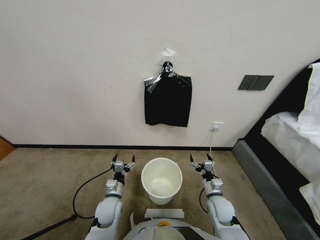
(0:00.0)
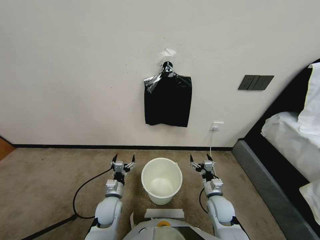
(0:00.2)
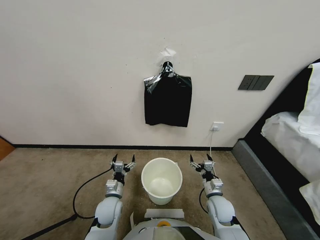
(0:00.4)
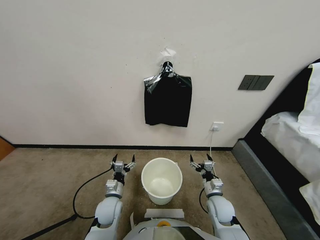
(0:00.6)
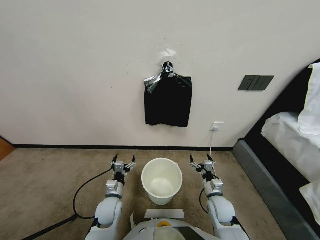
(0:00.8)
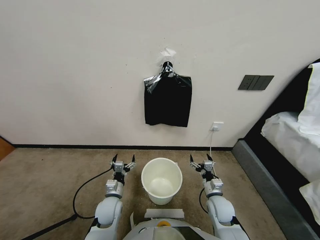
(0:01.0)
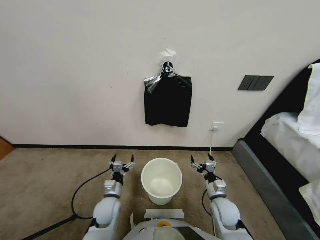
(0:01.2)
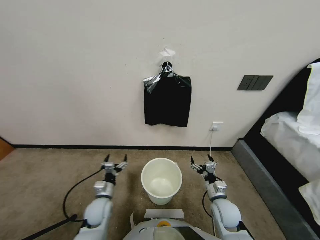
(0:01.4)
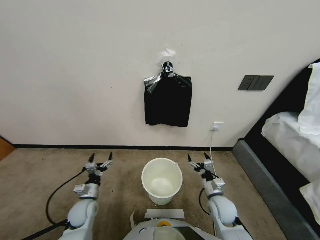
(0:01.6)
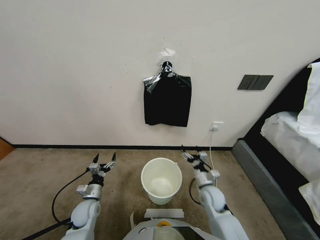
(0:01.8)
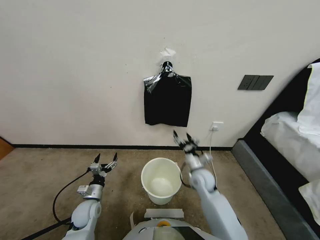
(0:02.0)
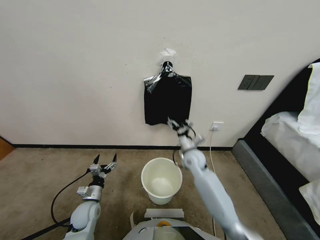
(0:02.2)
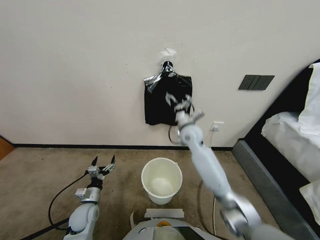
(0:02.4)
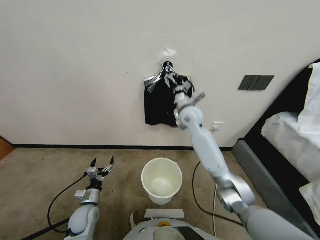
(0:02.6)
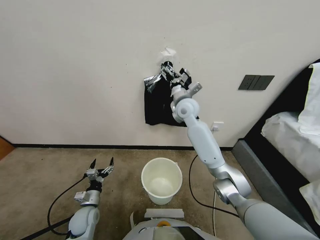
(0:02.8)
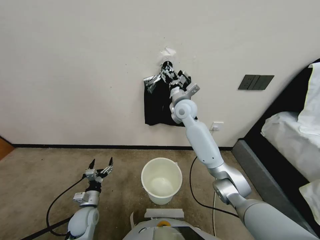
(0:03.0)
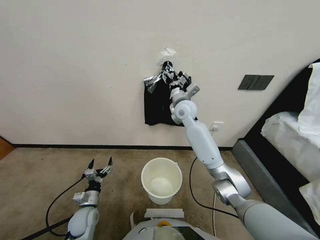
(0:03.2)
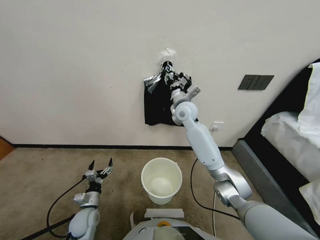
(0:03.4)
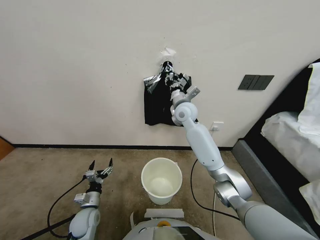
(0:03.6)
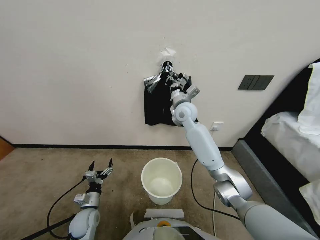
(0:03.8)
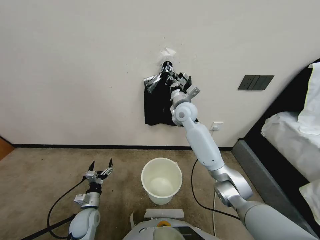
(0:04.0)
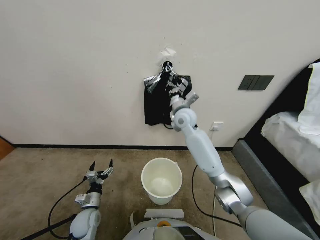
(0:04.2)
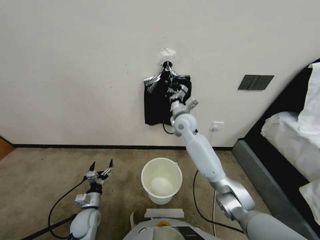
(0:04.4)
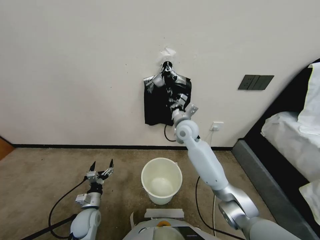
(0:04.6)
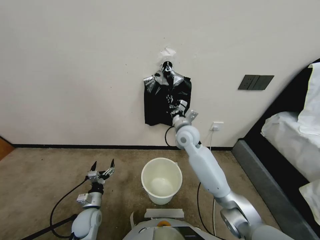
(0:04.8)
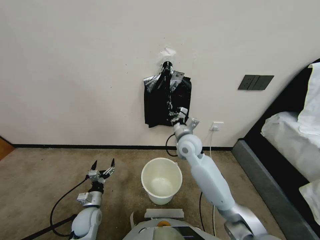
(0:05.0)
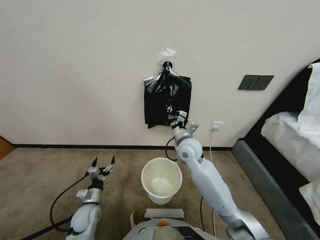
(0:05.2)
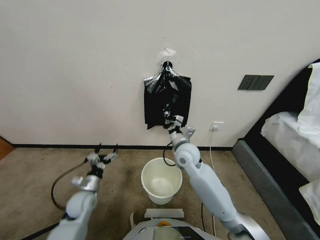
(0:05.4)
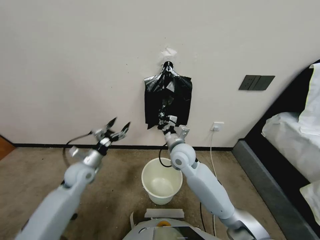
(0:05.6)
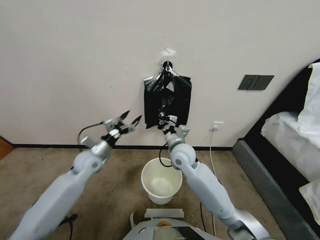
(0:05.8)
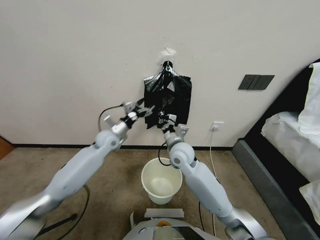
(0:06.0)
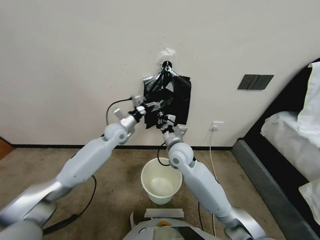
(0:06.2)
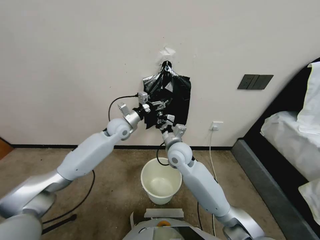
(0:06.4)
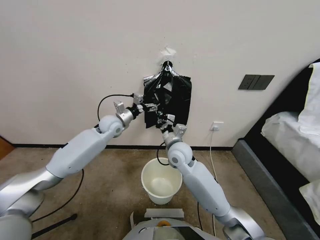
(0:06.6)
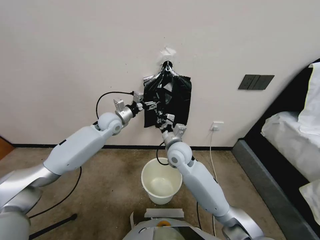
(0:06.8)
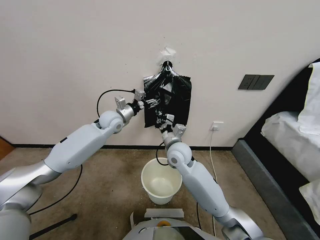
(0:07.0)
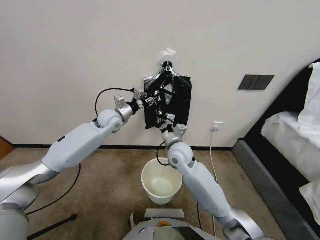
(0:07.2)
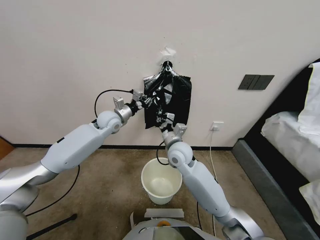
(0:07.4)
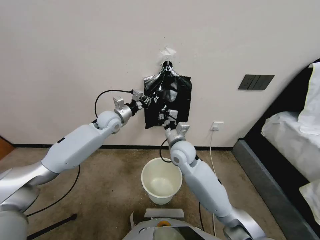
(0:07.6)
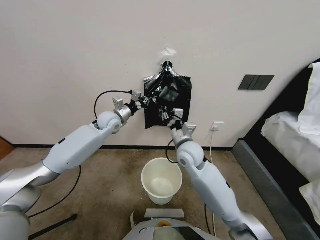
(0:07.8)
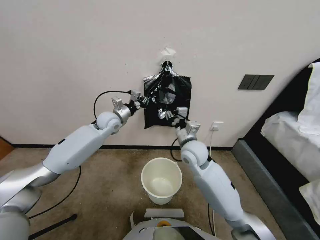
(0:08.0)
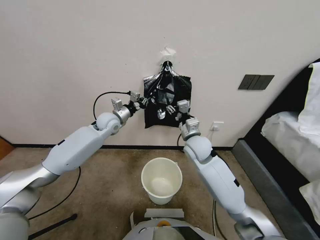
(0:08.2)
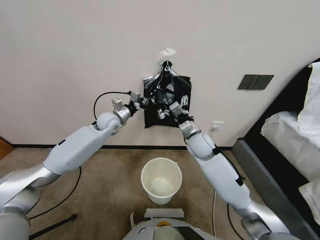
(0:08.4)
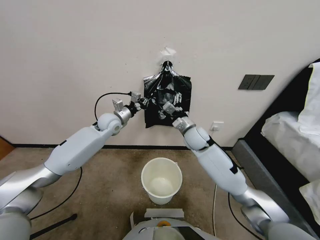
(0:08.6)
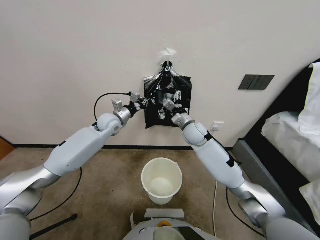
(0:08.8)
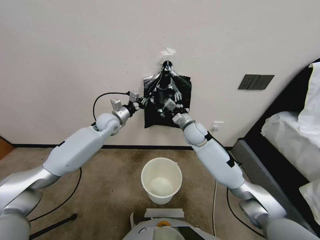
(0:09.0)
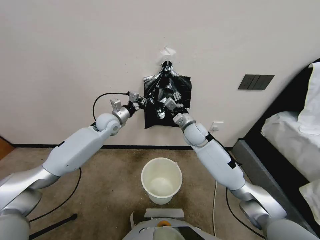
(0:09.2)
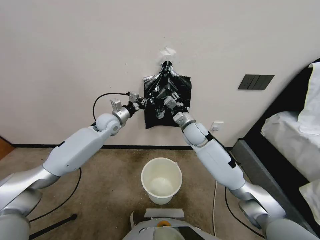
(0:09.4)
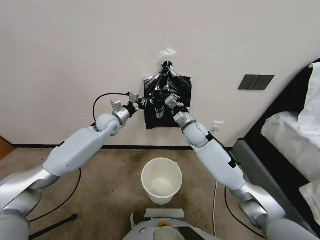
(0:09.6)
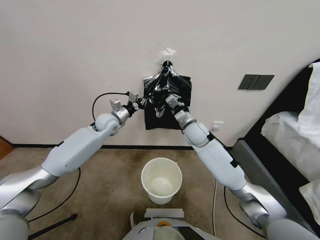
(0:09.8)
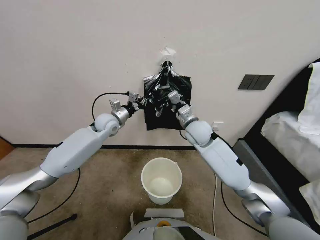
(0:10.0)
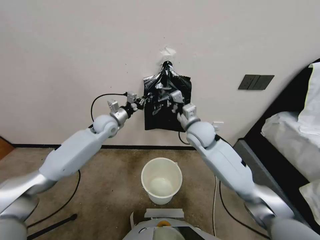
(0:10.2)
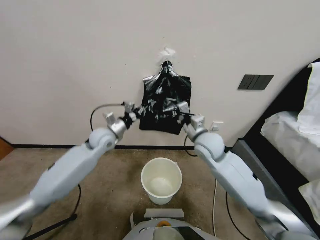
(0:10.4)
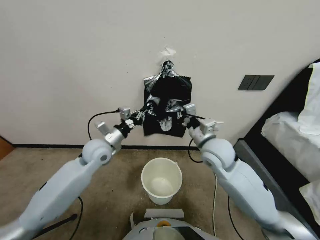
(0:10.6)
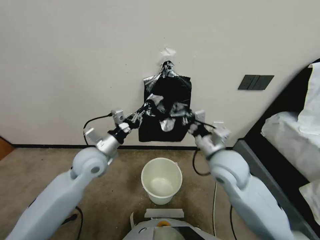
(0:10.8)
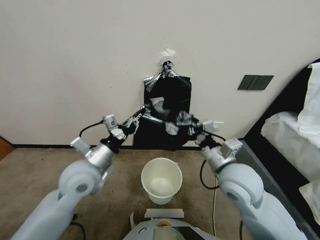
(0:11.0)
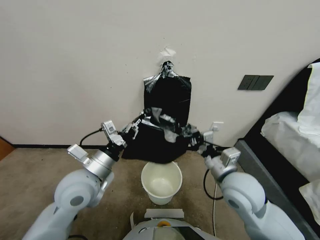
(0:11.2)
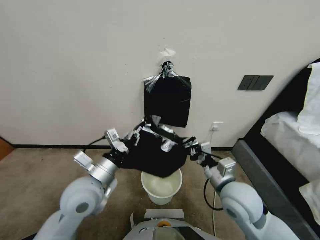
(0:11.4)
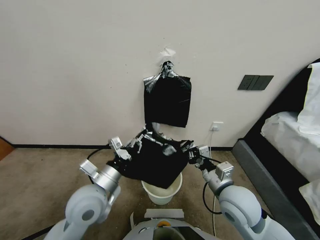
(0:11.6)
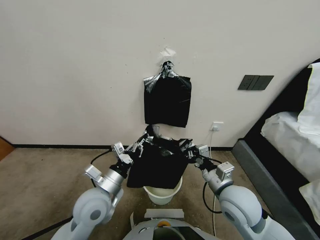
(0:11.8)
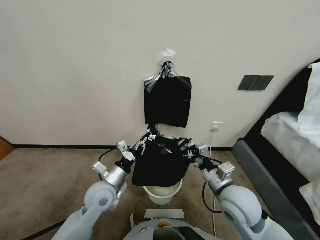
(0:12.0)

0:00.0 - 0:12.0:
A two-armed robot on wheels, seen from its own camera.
Task of the whole recording: Place a trash bag onto the trash bin.
0:01.6 - 0:03.0: The right gripper moves upward, forward and to the left, some 40 cm.
0:03.0 - 0:04.4: The right gripper shifts roughly 5 cm downward, and closes.
0:04.4 - 0:06.0: The right gripper shifts roughly 10 cm backward, while the left gripper goes roughly 35 cm forward and upward.
0:06.0 - 0:07.6: The left gripper moves roughly 5 cm, and closes its fingers.
0:07.6 - 0:09.0: The right gripper goes some 10 cm forward and to the right, and opens up.
0:09.0 - 0:10.4: Both grippers move backward, approximately 10 cm. The right gripper closes.
0:10.4 - 0:12.0: Both grippers move backward and downward, approximately 15 cm.

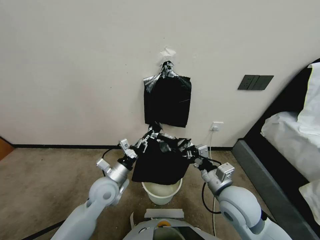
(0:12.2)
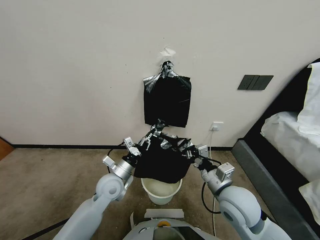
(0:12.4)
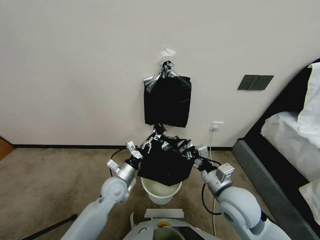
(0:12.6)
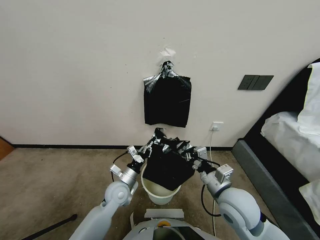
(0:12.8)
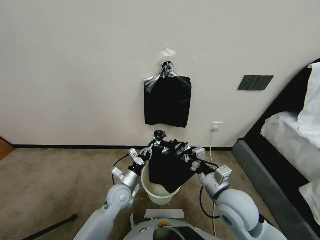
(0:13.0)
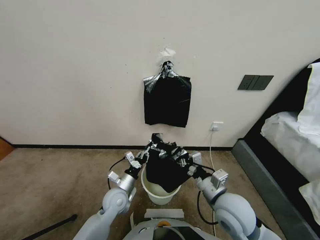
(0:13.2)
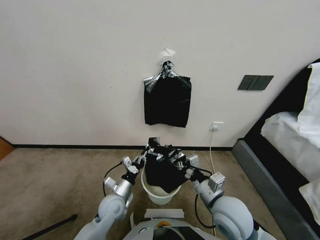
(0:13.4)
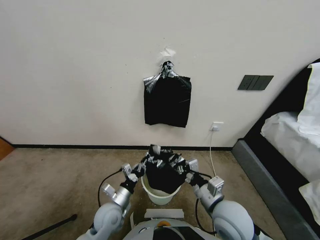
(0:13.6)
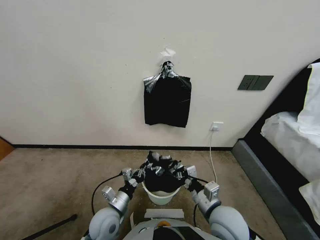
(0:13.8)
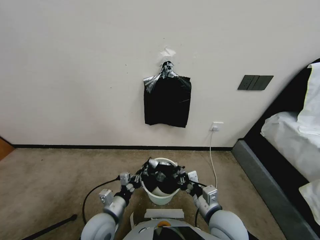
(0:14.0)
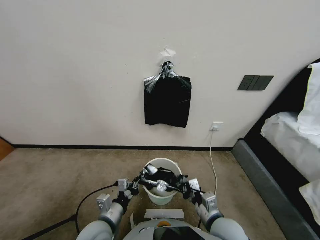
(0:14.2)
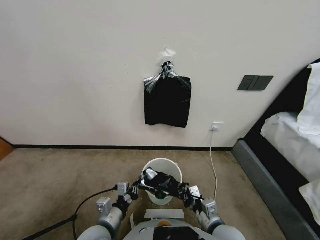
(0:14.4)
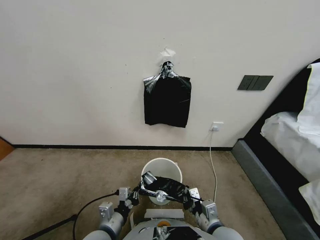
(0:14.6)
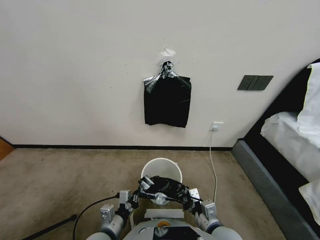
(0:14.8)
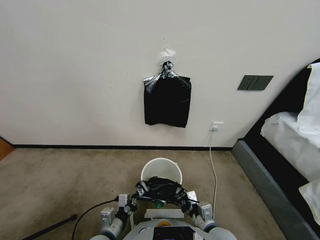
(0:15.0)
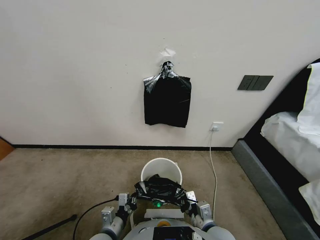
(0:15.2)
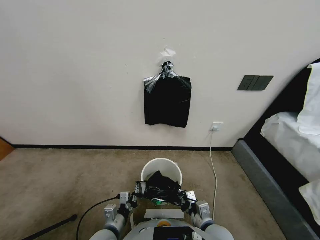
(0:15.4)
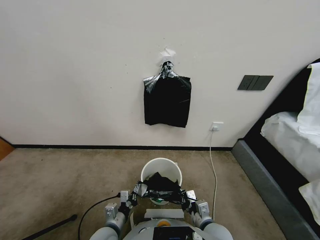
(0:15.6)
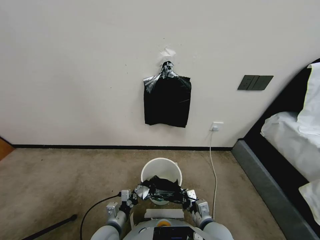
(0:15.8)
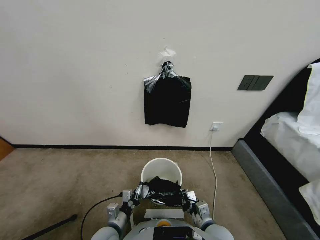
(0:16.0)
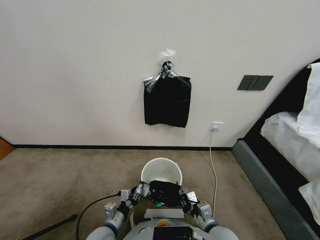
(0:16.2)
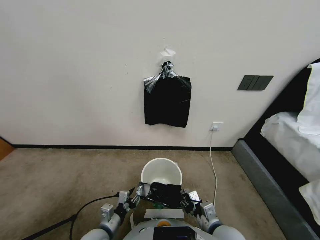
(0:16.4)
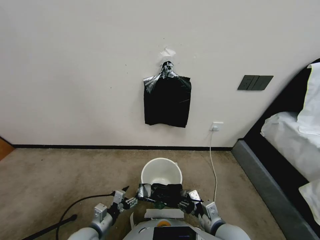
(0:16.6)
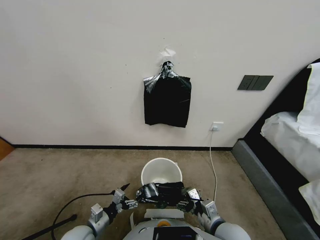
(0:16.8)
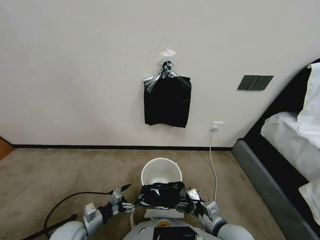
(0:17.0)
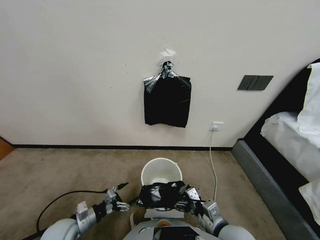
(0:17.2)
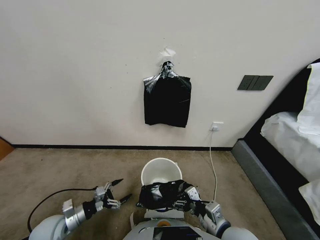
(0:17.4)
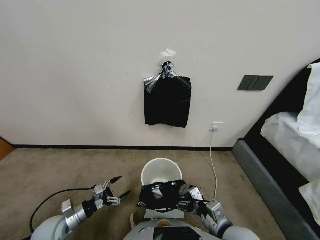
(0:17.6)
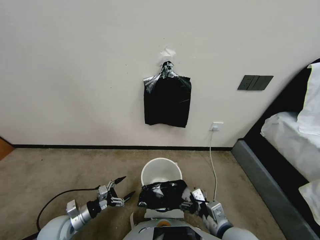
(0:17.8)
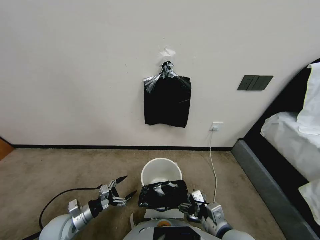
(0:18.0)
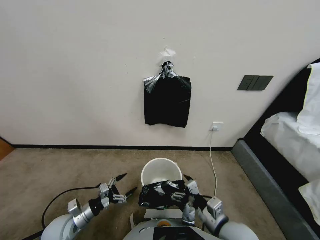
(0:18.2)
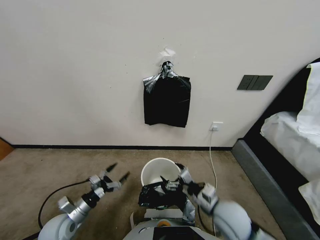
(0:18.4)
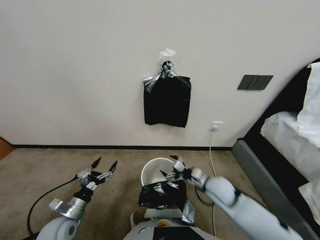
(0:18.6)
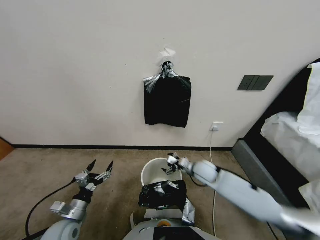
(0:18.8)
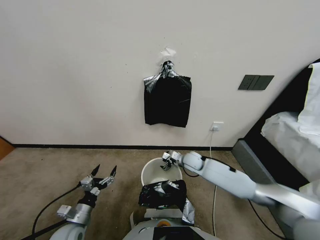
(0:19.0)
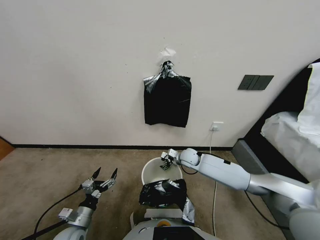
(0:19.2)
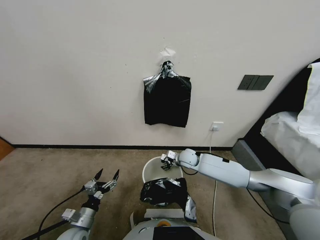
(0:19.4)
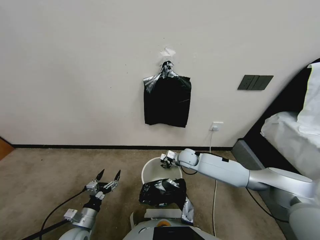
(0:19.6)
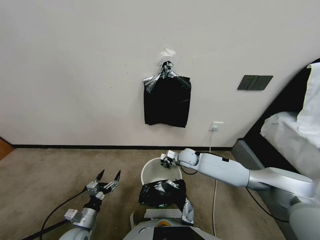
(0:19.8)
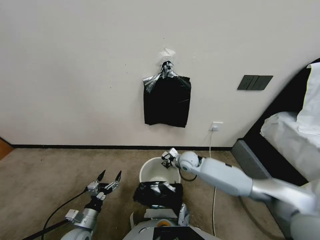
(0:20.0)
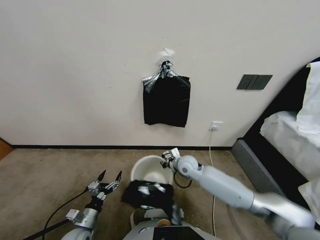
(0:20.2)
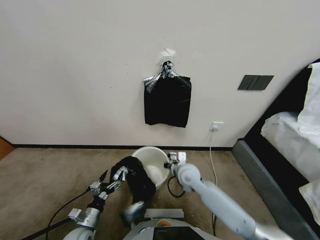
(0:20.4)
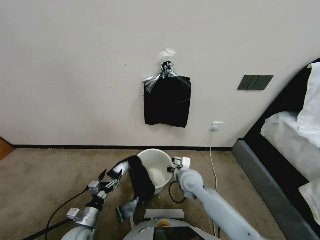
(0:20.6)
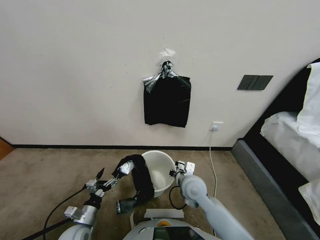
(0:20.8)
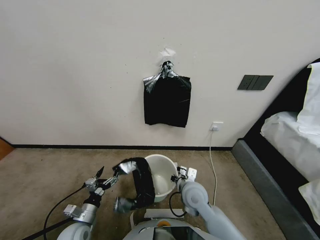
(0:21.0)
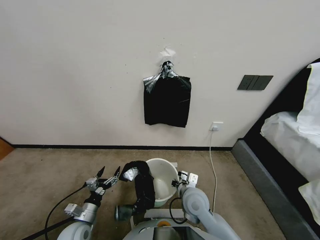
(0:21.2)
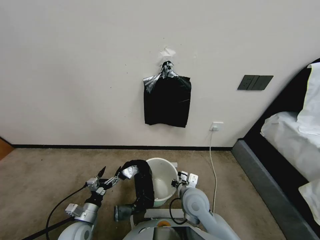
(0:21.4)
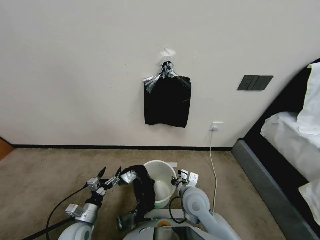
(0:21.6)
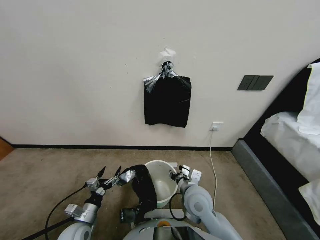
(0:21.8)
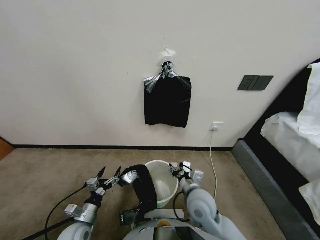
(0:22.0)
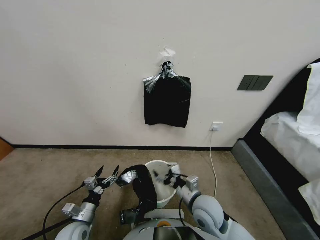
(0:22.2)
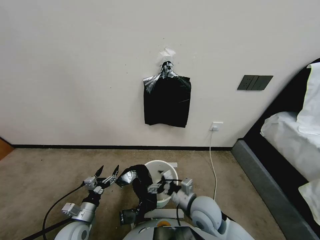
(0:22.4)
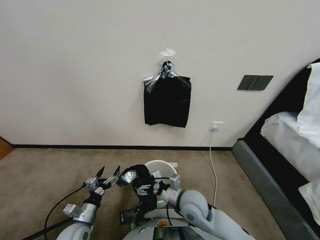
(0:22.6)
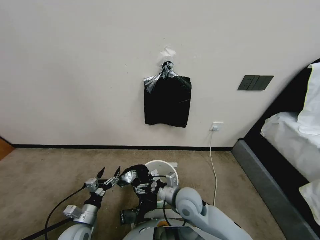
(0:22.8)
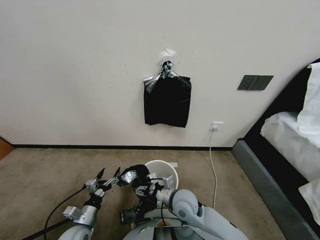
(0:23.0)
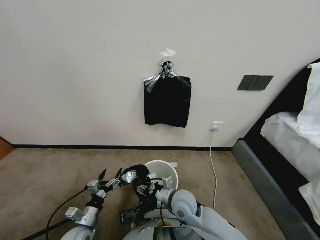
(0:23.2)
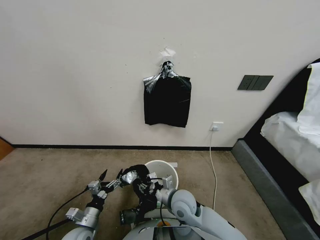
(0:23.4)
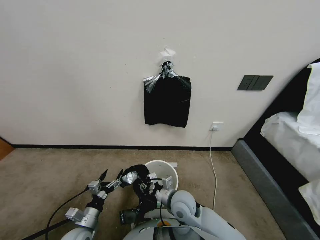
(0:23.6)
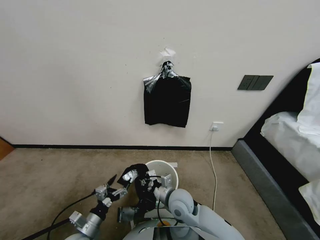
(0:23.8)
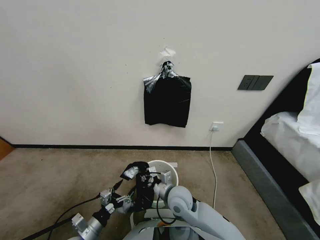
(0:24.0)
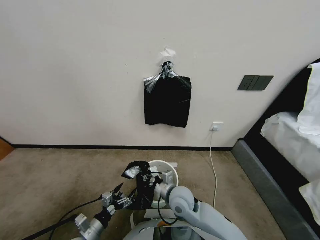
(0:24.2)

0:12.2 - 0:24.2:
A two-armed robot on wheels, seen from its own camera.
Task of the whole recording: Place a trash bag onto the trash bin.
0:12.2 - 0:13.8: The right gripper moves downward and backward, roughly 10 cm. The left gripper shifts some 15 cm backward and downward.
0:13.8 - 0:15.2: The right gripper shifts approximately 5 cm downward. Meanwhile the left gripper shifts by approximately 5 cm.
0:15.2 - 0:16.6: The right gripper opens. Meanwhile the left gripper shifts roughly 10 cm to the left, and opens.
0:16.6 - 0:18.2: The left gripper travels to the left by approximately 10 cm.
0:18.2 - 0:19.8: The left gripper moves to the right, roughly 5 cm. The right gripper is displaced forward by some 30 cm, and closes.
0:19.8 - 0:21.2: The right gripper heads backward, covering about 20 cm.
0:21.2 - 0:22.6: The right gripper opens its fingers.
0:22.6 - 0:24.2: The right gripper closes its fingers.
